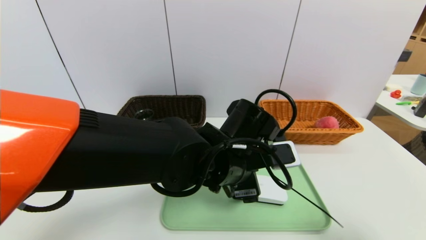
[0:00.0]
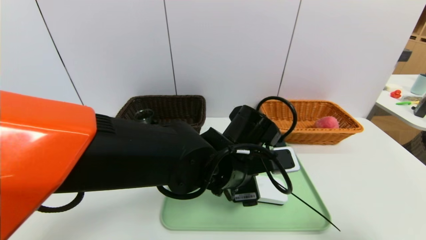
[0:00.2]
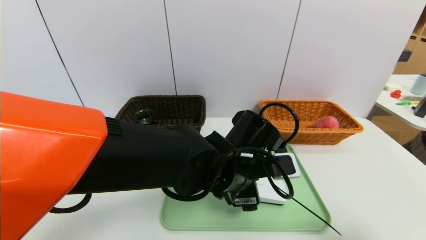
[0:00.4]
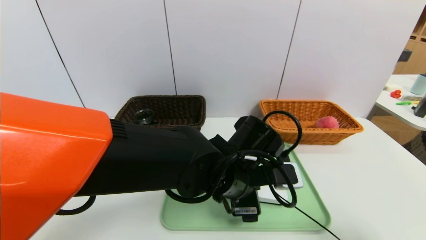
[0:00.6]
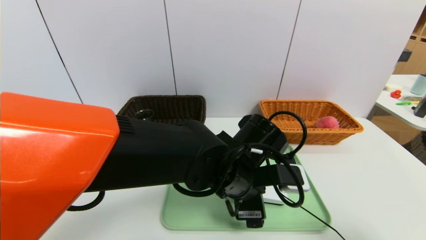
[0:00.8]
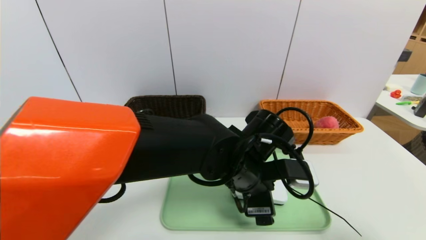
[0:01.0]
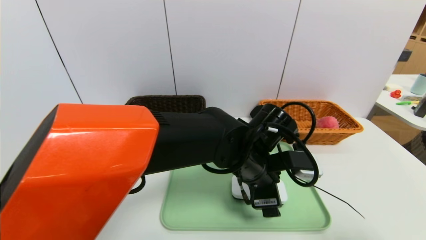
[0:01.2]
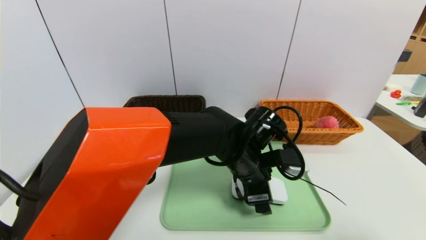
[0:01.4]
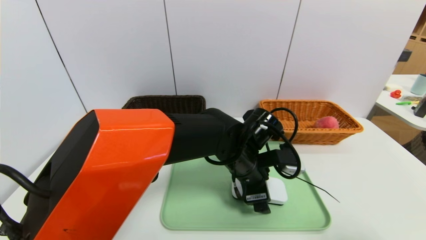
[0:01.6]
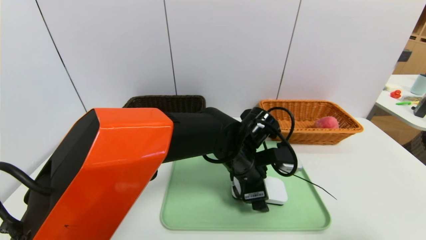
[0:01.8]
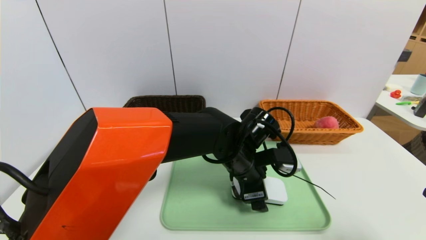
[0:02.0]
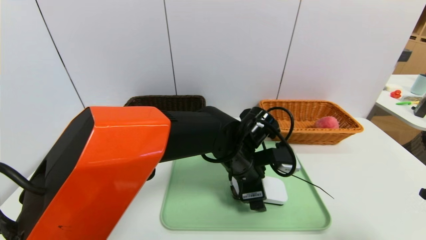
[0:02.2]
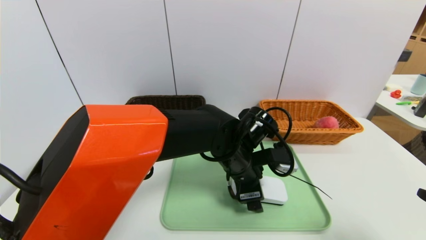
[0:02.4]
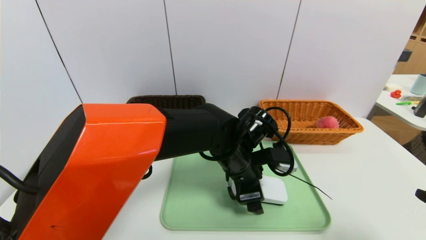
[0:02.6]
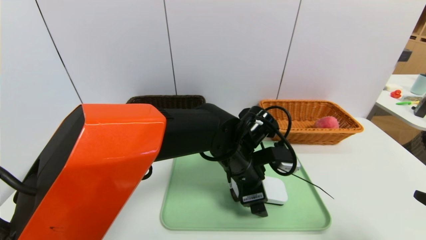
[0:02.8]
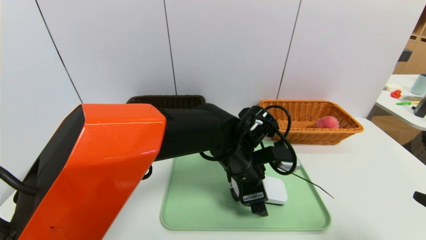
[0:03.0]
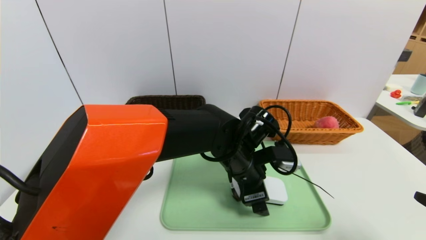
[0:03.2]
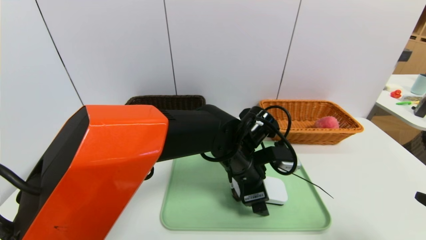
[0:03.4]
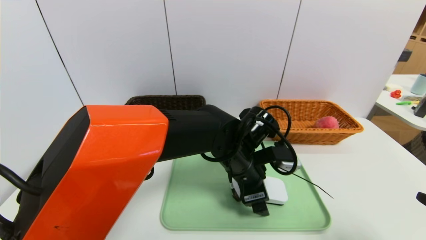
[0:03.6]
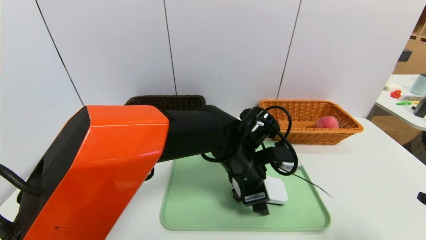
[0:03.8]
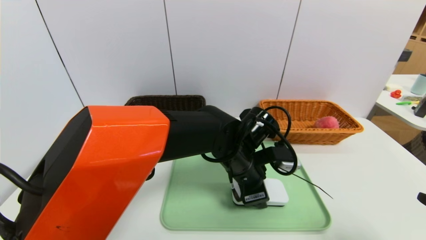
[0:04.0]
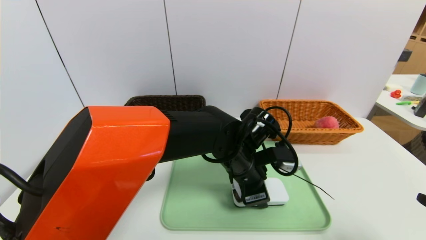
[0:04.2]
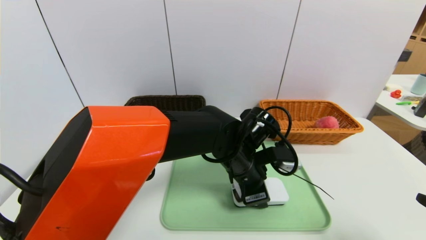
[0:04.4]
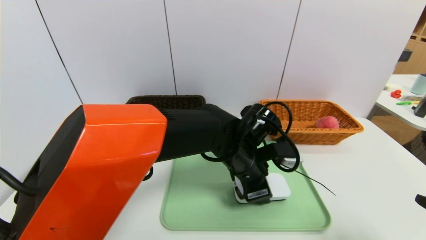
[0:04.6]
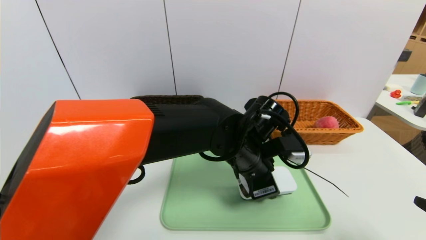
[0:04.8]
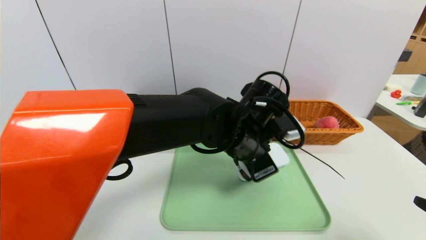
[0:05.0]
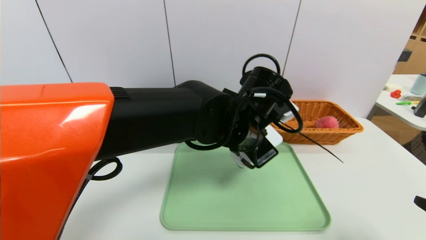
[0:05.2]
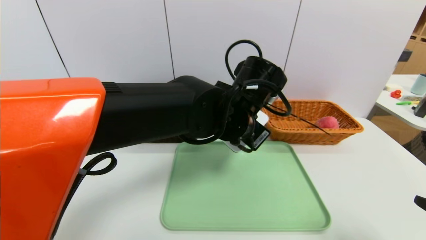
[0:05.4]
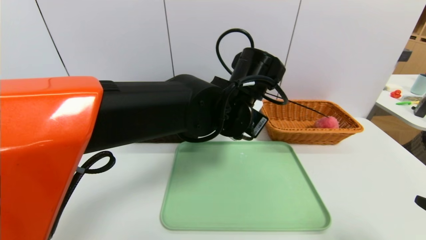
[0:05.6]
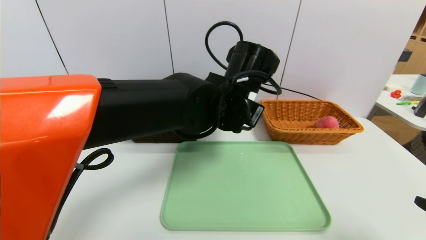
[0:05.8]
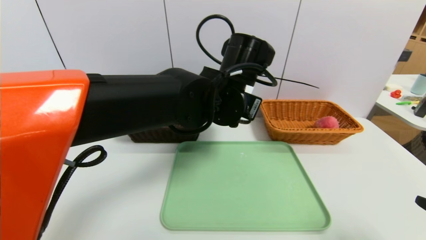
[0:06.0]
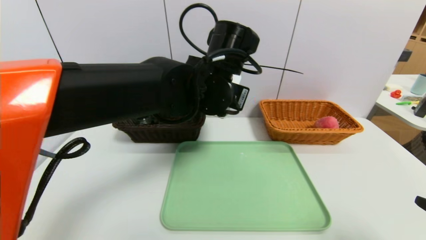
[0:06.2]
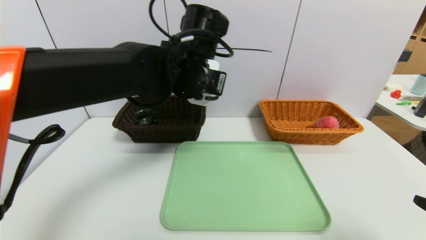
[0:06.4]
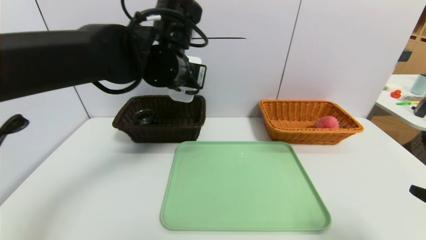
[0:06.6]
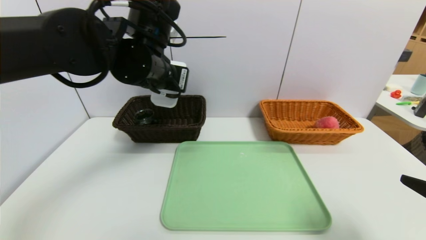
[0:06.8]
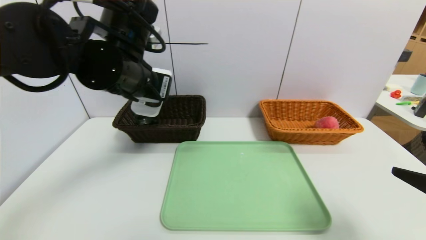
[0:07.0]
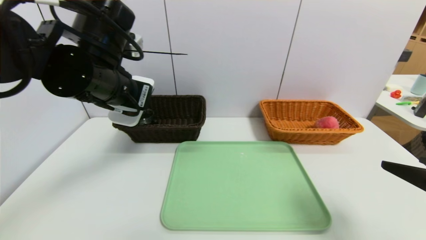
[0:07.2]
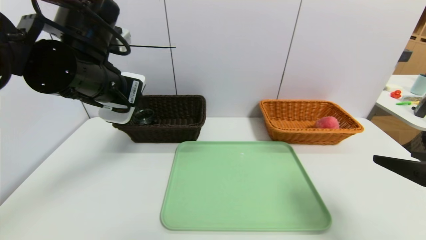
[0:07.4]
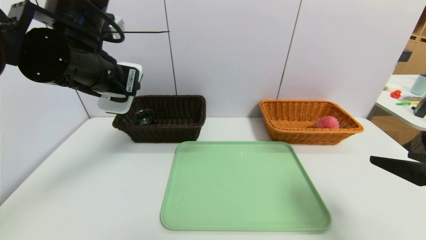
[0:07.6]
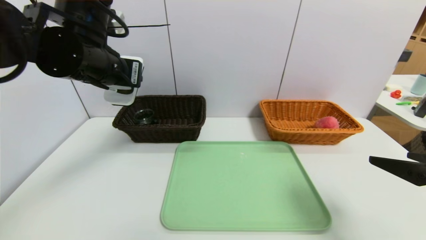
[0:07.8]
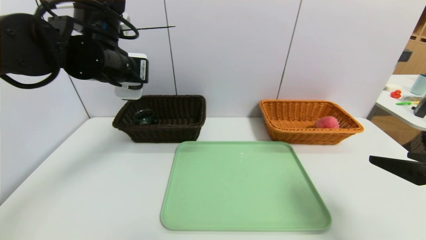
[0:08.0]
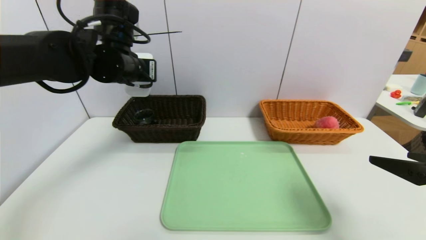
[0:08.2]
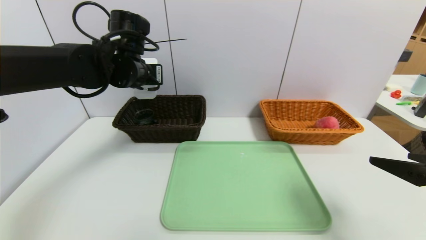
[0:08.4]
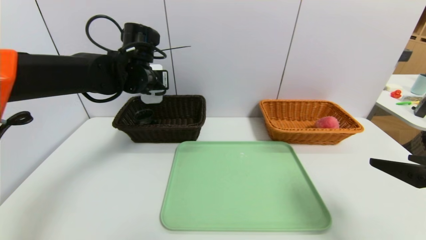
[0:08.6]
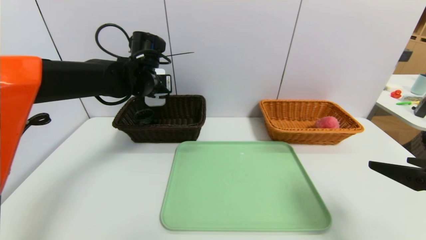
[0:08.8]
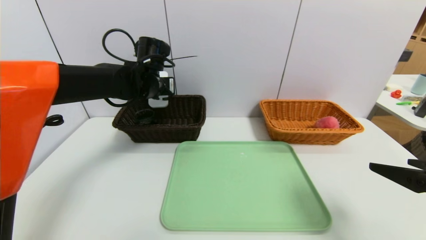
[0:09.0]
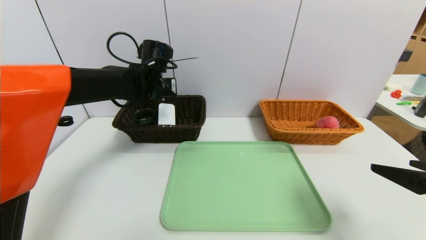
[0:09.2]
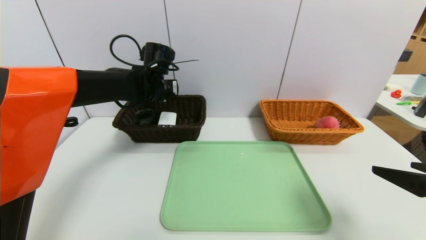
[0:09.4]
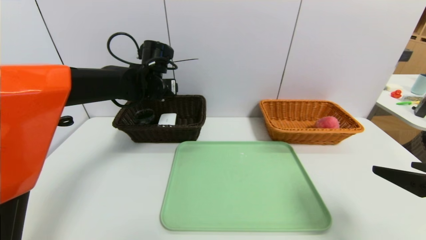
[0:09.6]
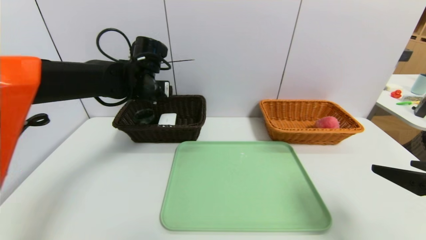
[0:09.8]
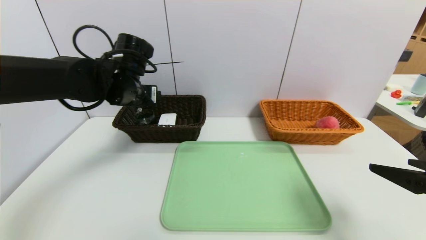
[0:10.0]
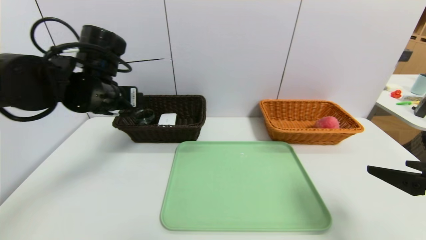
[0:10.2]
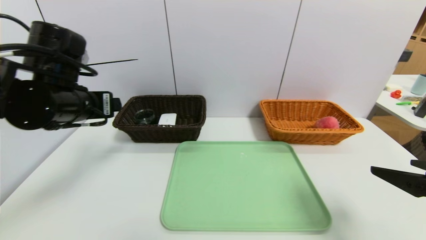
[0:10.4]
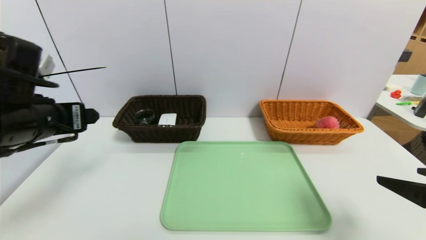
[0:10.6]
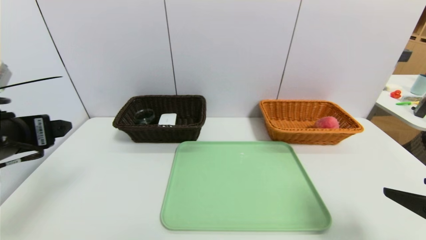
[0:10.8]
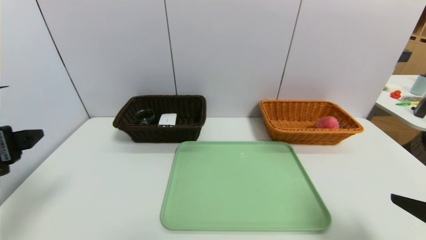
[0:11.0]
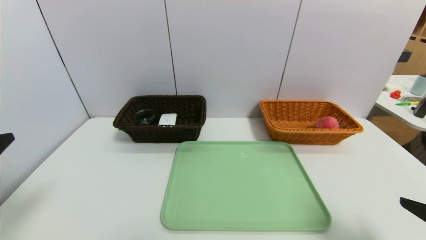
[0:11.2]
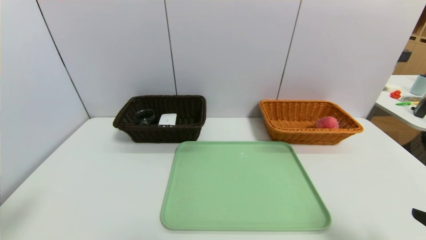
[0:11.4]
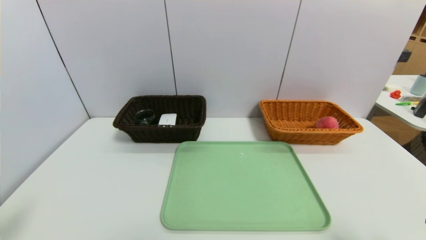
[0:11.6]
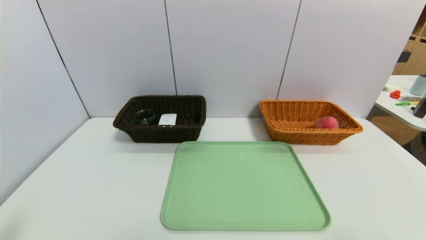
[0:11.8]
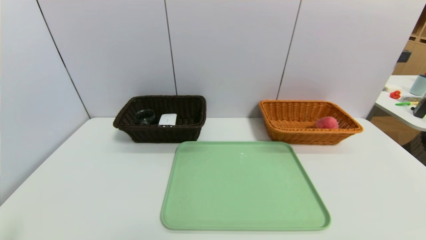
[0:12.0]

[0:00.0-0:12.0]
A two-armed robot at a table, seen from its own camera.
Task of the whole recording: place the food in the right basket with the right gripper, and place the non food items in the left basket with the left gripper.
Step, 0:00.0 to 0:09.4: Grasp the white eraser and put it in the left basket.
0:00.0 to 0:01.6: The left gripper travels forward by approximately 5 cm.
0:01.6 to 0:03.0: There are only small adjustments of the grippers.
0:03.0 to 0:04.4: The left gripper closes up.
0:04.4 to 0:06.0: The left gripper moves upward, about 10 cm.
0:06.0 to 0:07.6: The left gripper heads to the left, covering roughly 20 cm, while the right gripper travels forward by about 5 cm.
0:07.6 to 0:09.0: The left gripper shifts about 15 cm forward and downward.
0:09.0 to 0:10.4: The left gripper is displaced backward and to the left by about 20 cm, and opens up.
0:10.4 to 0:12.0: The right gripper heads backward, covering roughly 15 cm, while the left gripper shifts roughly 25 cm backward and downward.
